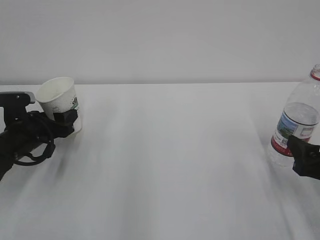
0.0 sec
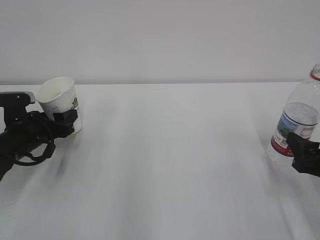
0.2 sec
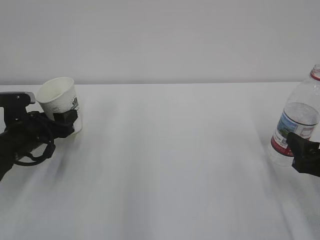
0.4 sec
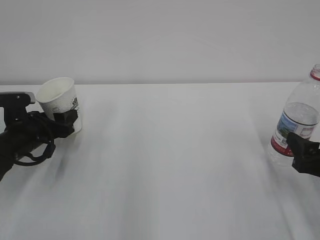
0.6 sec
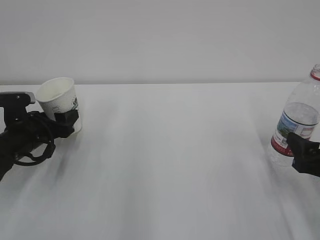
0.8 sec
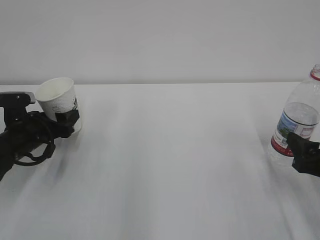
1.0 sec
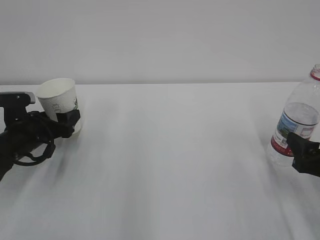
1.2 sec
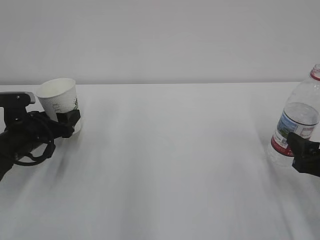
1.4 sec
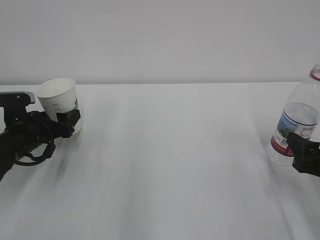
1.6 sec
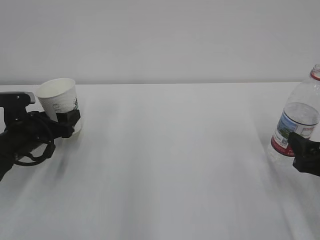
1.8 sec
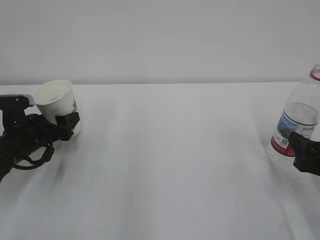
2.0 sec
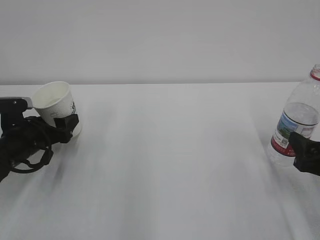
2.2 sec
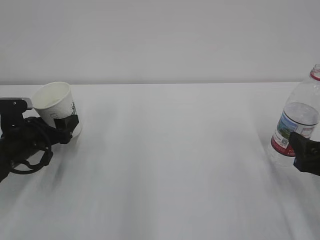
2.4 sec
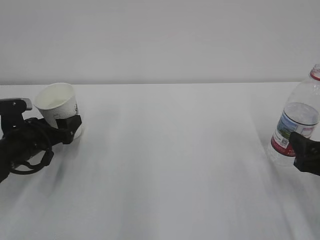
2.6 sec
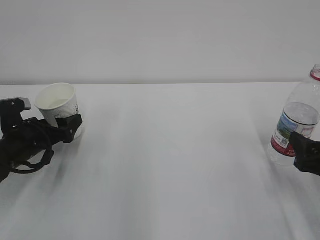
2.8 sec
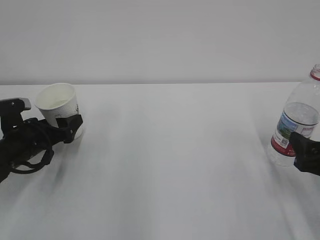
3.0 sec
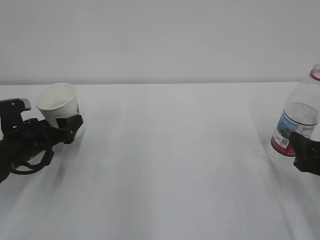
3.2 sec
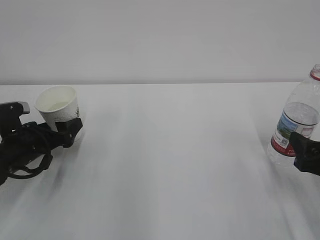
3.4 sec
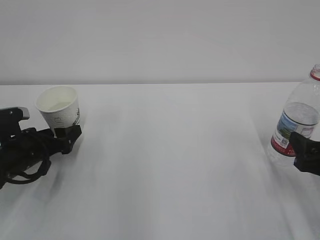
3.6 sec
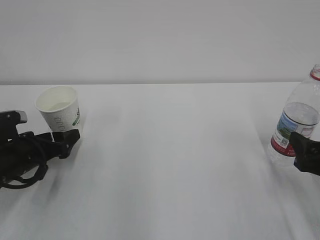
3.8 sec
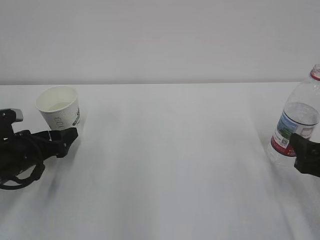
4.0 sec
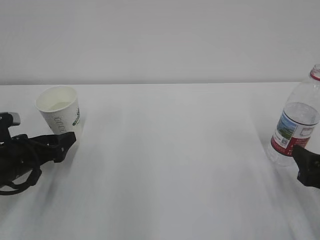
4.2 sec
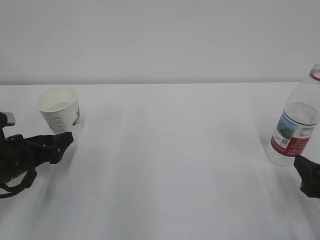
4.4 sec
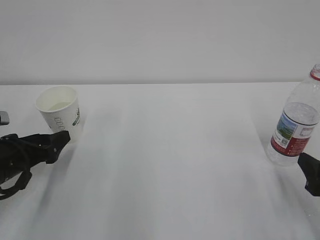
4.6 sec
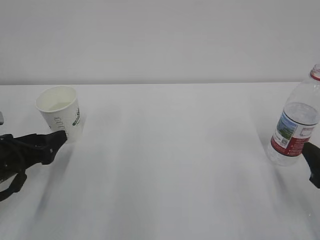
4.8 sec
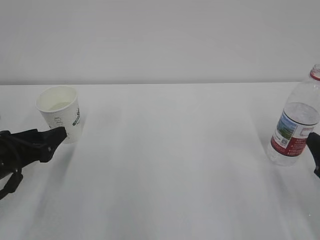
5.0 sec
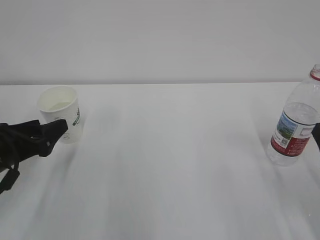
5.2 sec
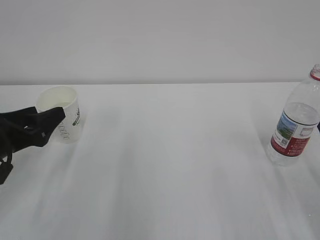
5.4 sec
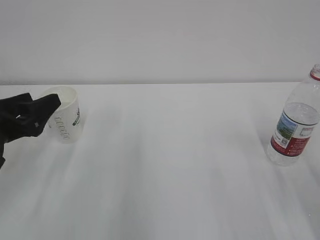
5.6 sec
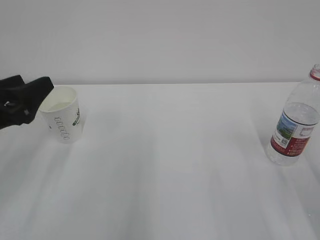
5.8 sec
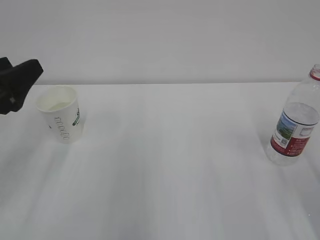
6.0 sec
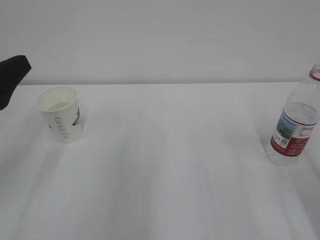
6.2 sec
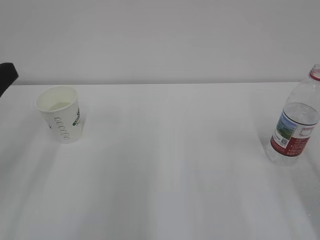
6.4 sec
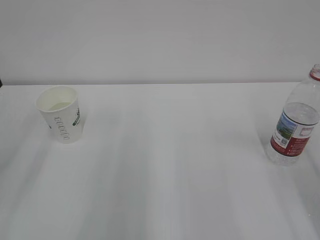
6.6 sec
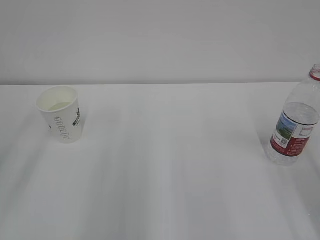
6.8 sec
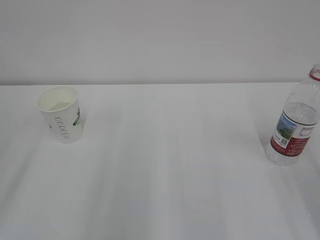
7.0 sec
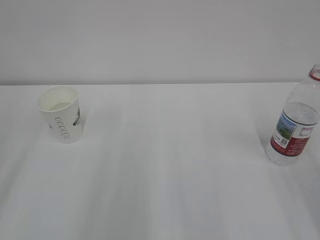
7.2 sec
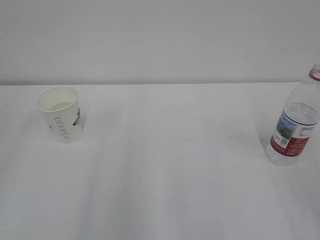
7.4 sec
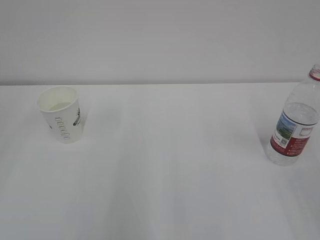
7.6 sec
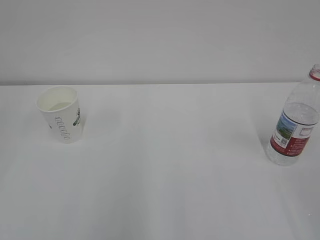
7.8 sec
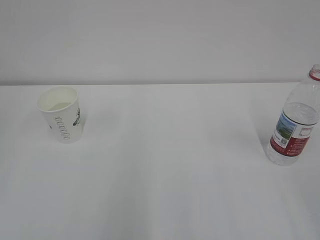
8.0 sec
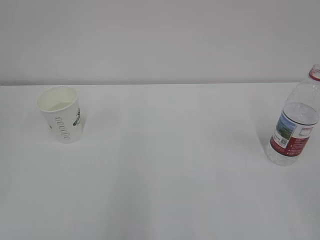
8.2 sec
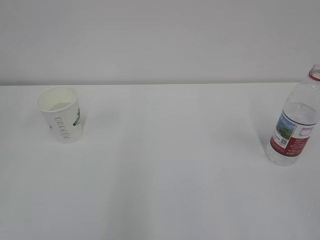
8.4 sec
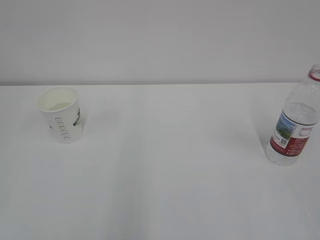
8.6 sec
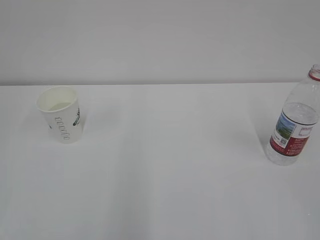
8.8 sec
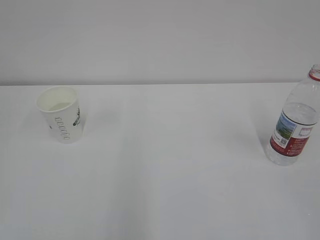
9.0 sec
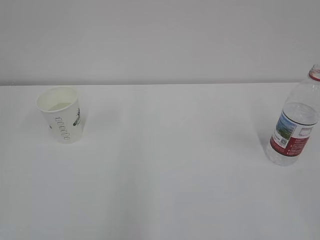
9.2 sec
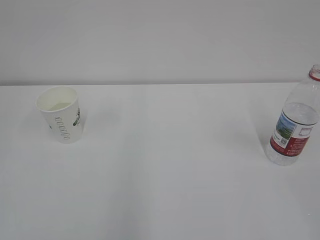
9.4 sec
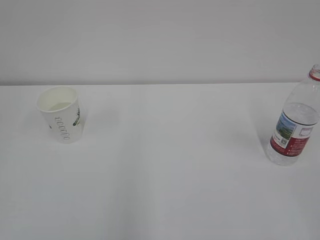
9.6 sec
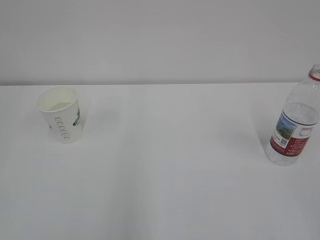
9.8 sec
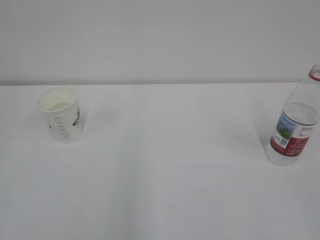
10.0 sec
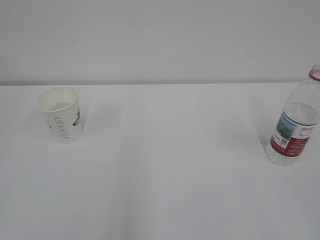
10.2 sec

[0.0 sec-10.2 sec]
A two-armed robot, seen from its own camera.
1.4 sec to 3.0 sec: The left gripper opens up.
3.0 sec to 4.4 sec: The left gripper moves backward, approximately 5 cm.
4.4 sec to 5.8 sec: The right gripper heads upward, covering approximately 10 cm, while the left gripper moves upward, about 10 cm.
5.8 sec to 7.2 sec: The left gripper goes approximately 15 cm backward and upward.
